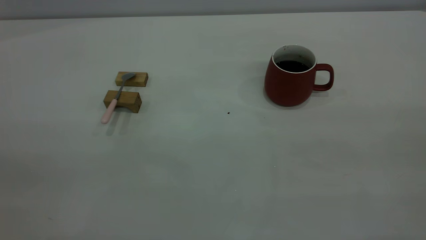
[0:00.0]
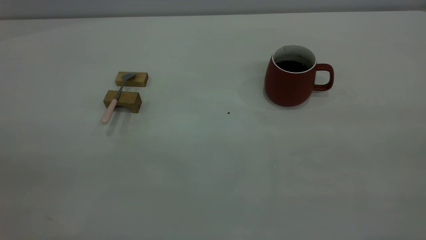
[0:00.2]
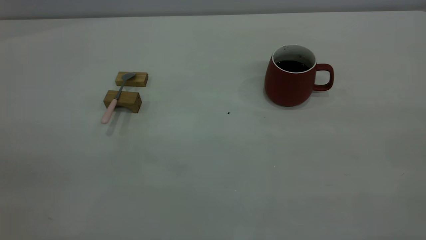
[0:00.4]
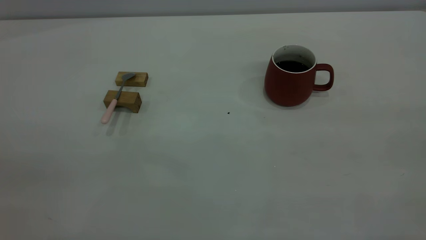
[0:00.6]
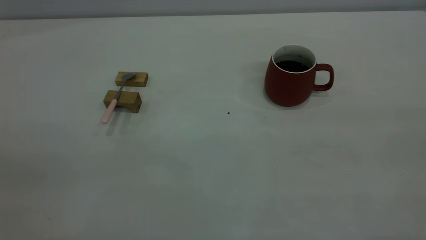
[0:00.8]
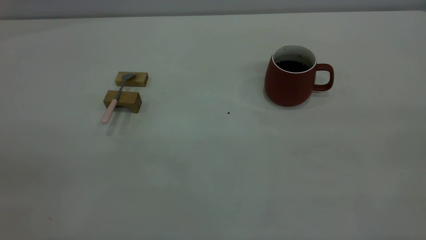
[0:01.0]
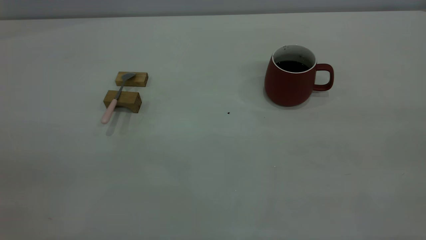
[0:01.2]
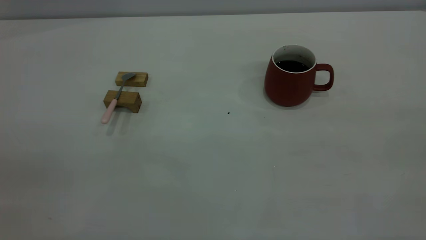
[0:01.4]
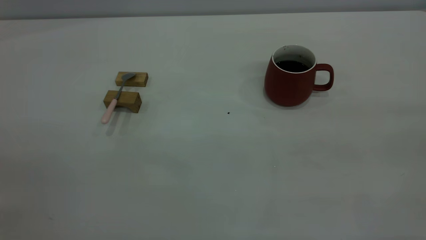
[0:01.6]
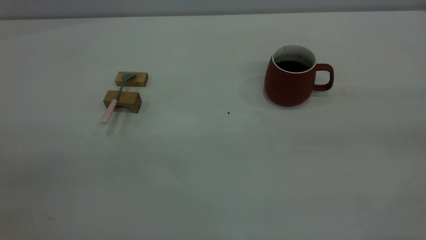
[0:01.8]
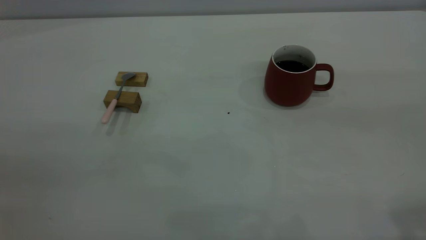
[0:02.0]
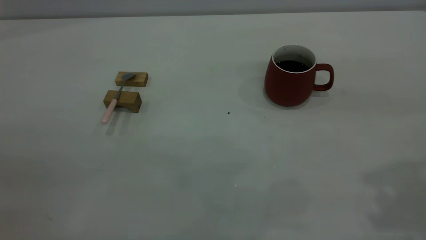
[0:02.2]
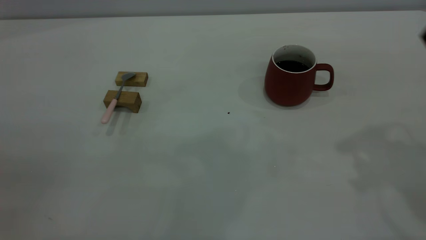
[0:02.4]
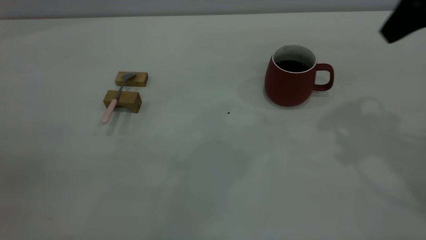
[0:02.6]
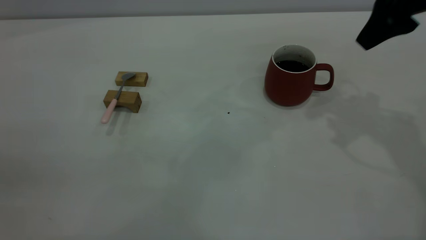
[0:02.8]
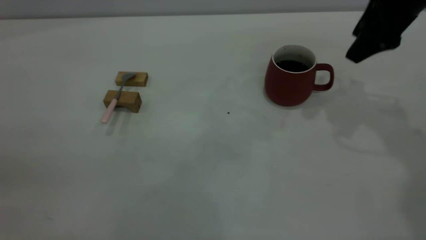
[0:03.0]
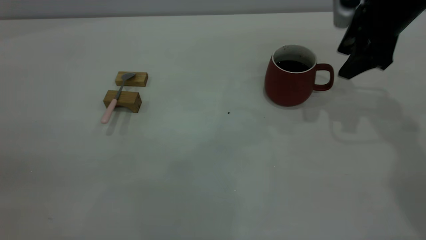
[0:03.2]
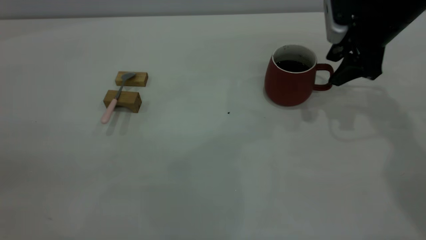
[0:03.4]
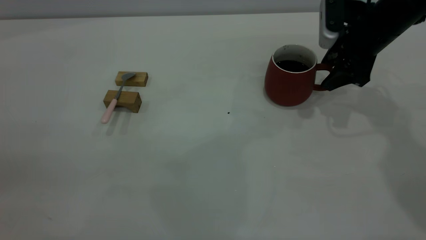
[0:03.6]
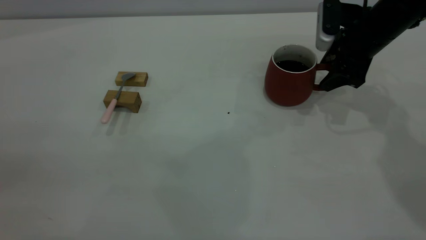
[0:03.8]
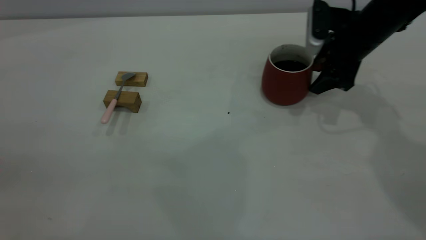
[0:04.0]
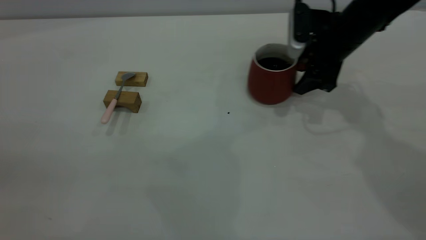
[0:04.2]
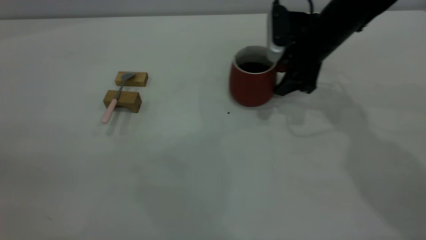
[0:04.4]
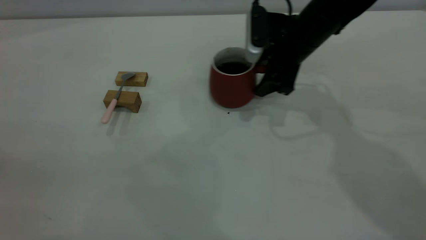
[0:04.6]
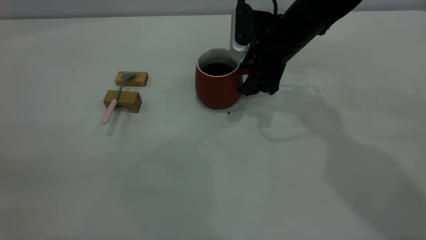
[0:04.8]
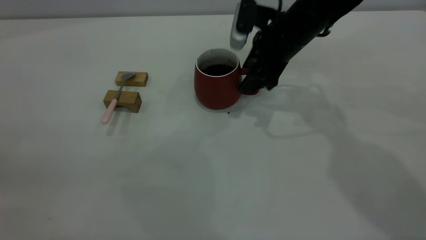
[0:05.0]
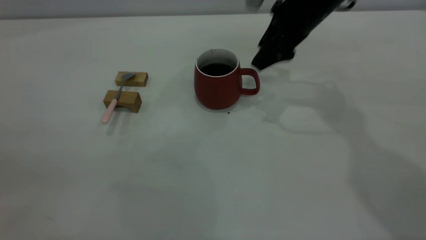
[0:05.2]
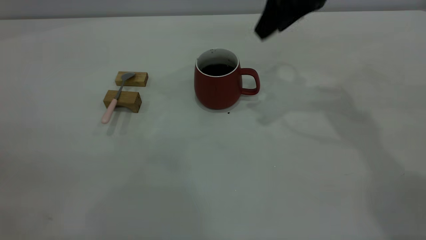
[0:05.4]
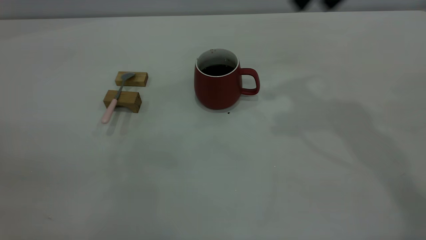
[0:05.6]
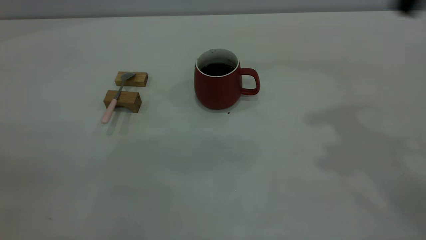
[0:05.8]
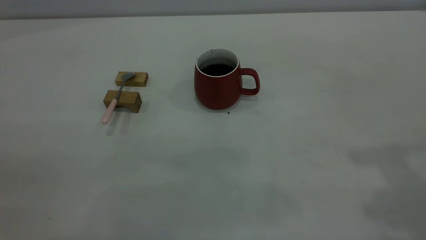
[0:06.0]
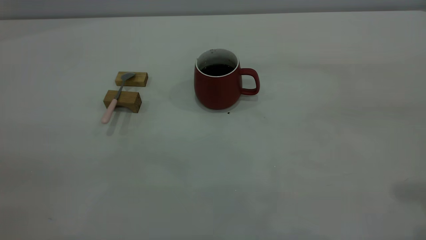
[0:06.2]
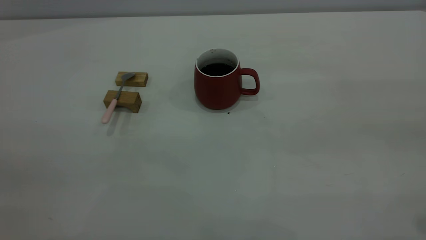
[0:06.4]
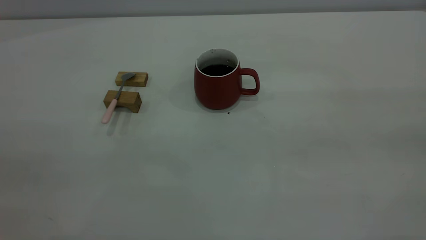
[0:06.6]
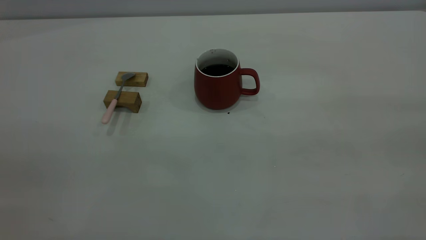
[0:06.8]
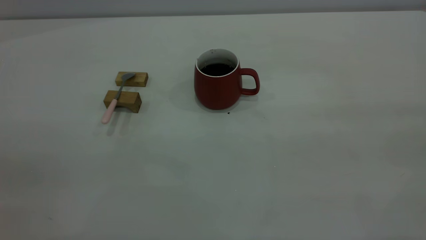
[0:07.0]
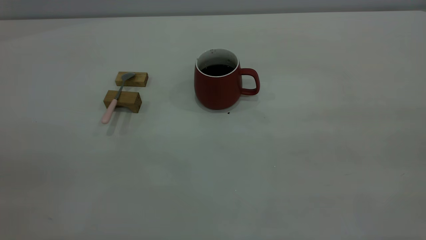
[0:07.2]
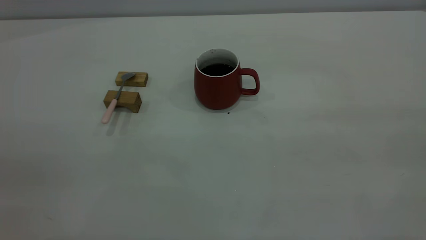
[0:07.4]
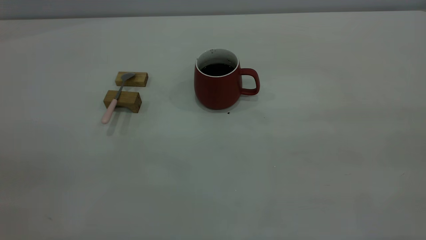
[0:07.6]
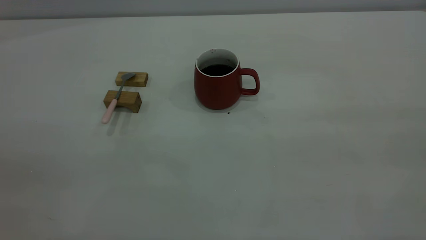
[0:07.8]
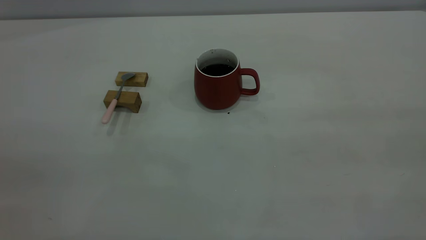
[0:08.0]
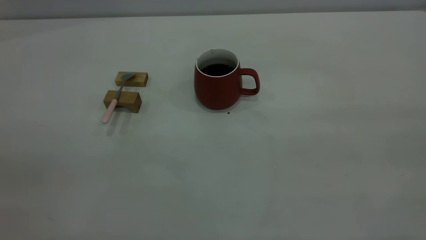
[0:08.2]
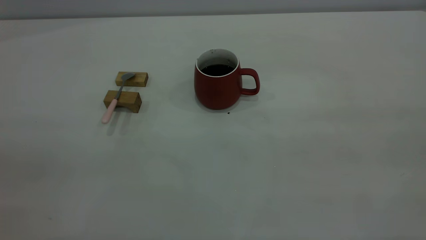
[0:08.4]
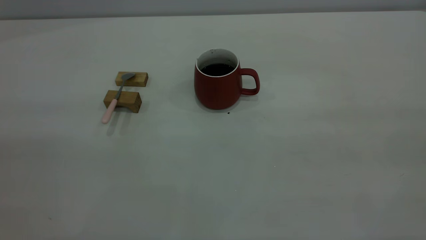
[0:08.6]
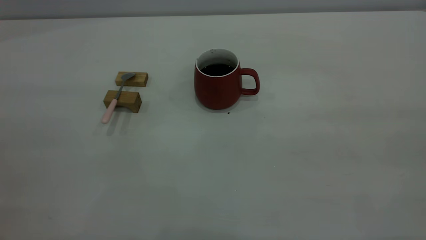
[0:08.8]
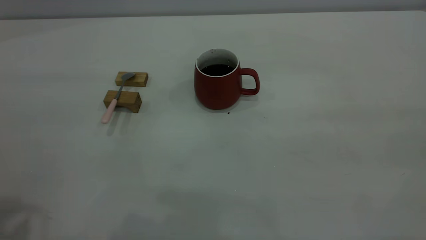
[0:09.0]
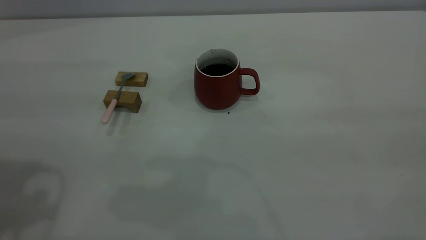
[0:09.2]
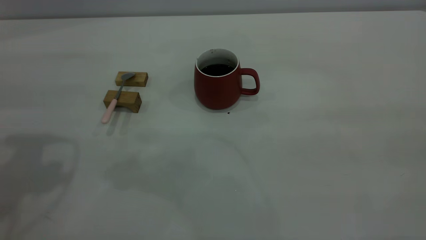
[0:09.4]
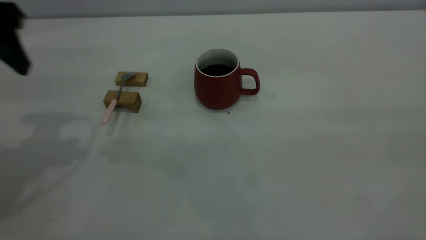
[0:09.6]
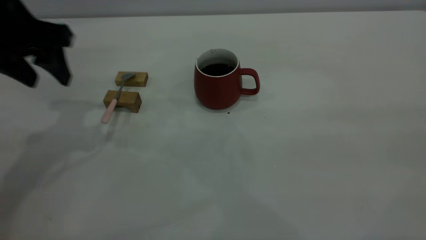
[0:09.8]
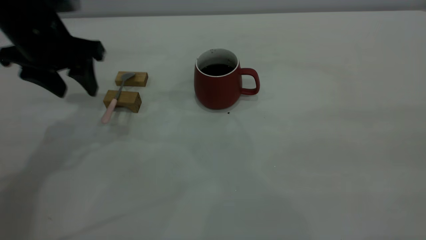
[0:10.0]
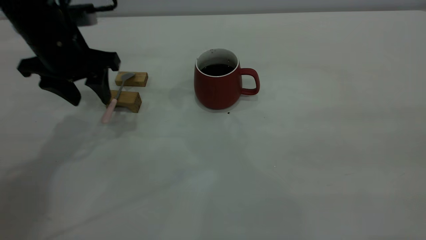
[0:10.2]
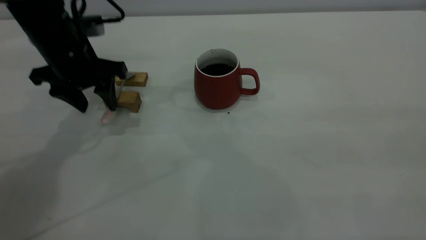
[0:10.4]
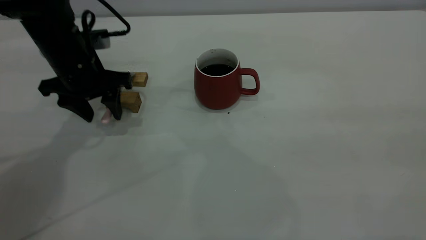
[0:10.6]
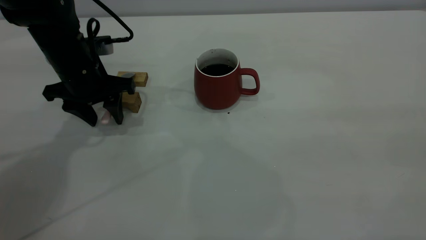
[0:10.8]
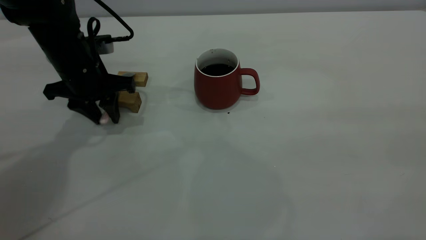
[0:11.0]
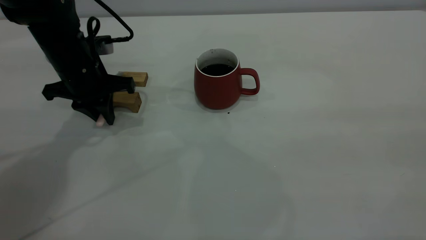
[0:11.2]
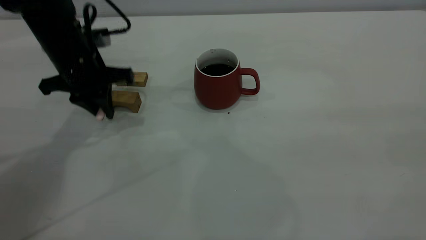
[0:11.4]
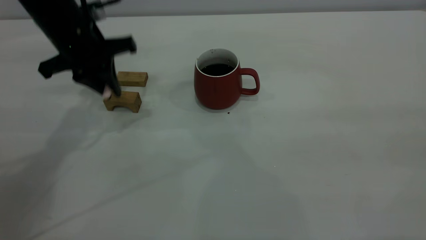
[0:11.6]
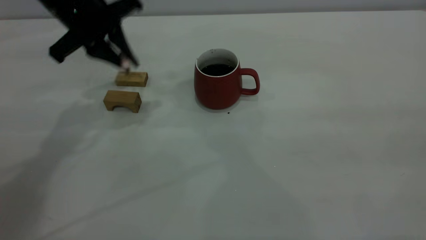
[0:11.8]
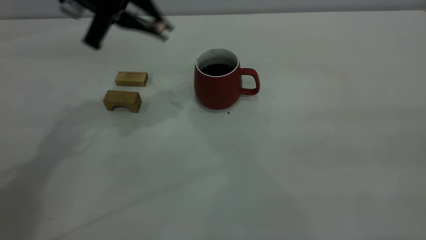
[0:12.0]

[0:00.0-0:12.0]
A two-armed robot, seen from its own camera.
Step, 0:00.0 to 0:05.2: Move the cup with coffee to the center of view.
Step, 0:05.4 to 0:11.6: Pick up the spoon.
0:01.6 to 0:03.0: The right gripper heads forward and downward, covering about 40 cm, and opens its fingers.
0:03.0 to 0:04.4: The right gripper shifts approximately 15 cm downward and to the left.
0:04.4 to 0:06.0: The right gripper is displaced upward, backward and to the right by some 35 cm.
0:09.0 to 0:10.4: The left gripper shifts roughly 30 cm forward and downward.
0:10.4 to 0:12.0: The left gripper travels upward and to the right by approximately 10 cm, and closes up.

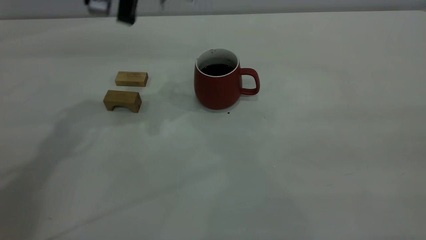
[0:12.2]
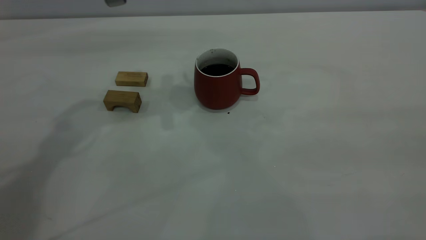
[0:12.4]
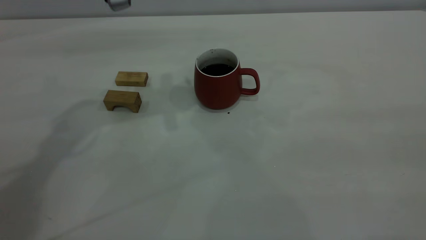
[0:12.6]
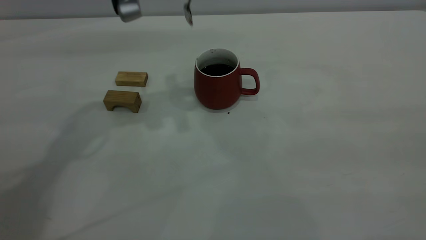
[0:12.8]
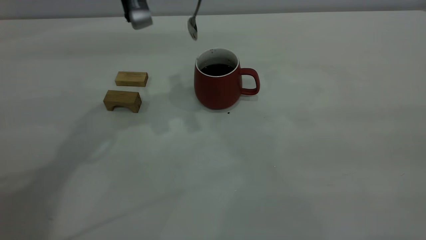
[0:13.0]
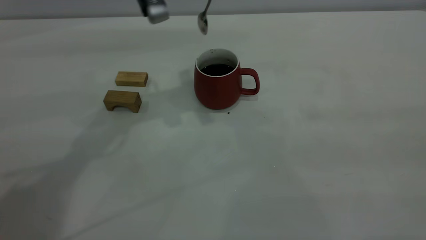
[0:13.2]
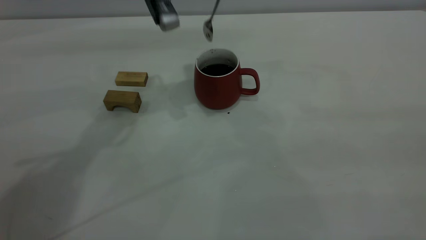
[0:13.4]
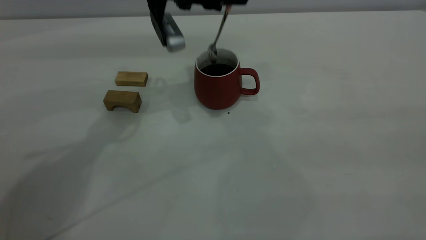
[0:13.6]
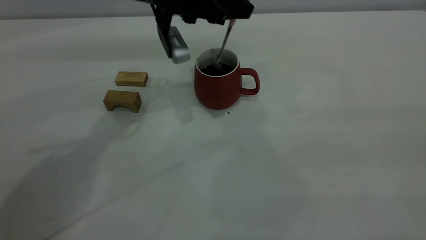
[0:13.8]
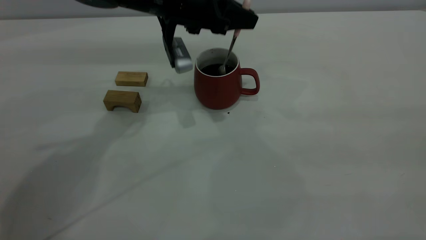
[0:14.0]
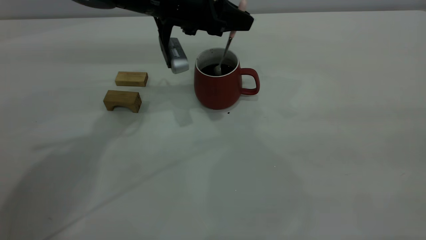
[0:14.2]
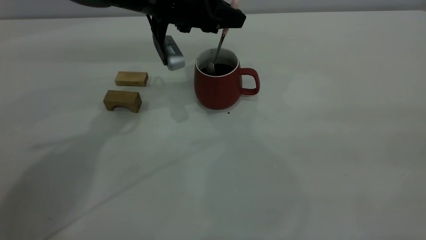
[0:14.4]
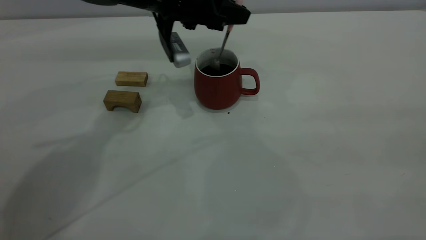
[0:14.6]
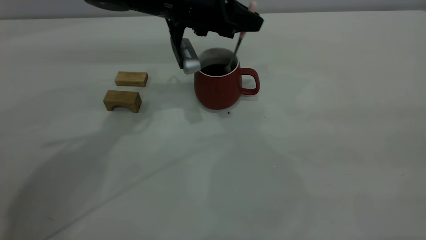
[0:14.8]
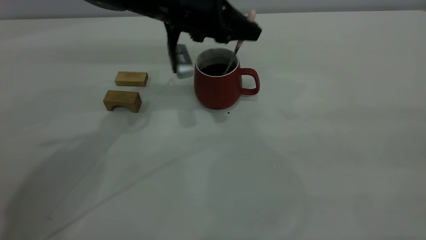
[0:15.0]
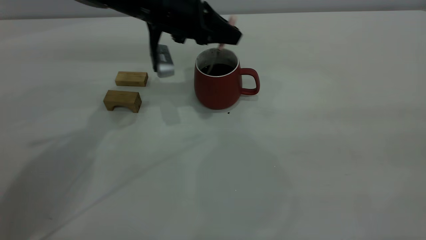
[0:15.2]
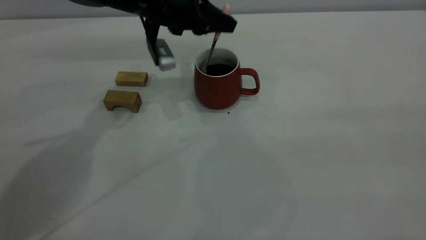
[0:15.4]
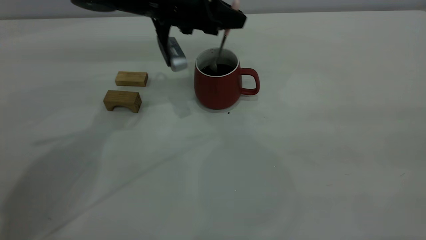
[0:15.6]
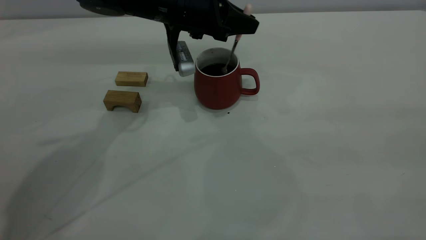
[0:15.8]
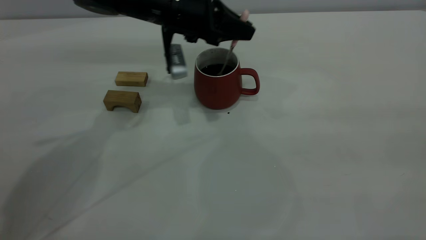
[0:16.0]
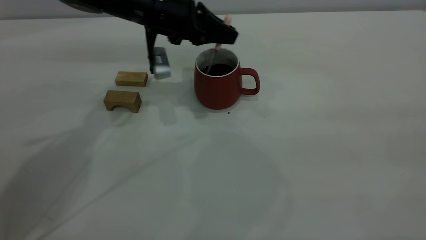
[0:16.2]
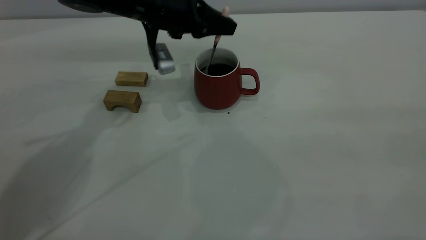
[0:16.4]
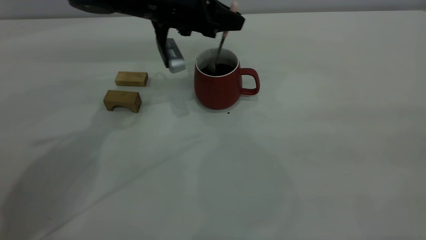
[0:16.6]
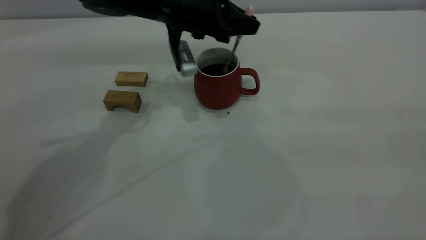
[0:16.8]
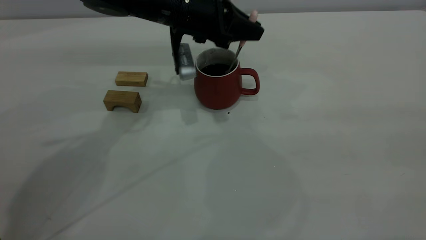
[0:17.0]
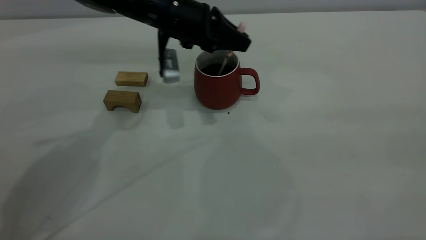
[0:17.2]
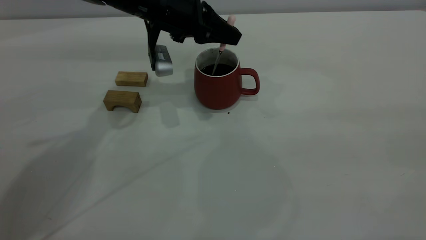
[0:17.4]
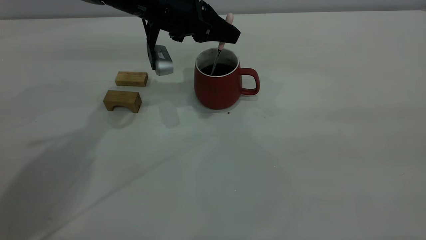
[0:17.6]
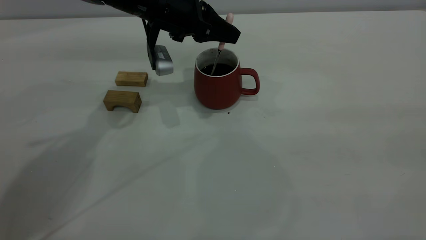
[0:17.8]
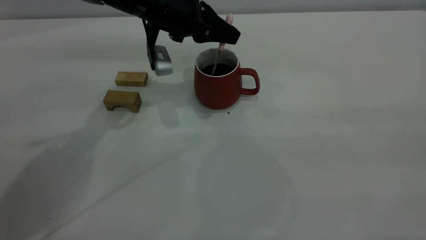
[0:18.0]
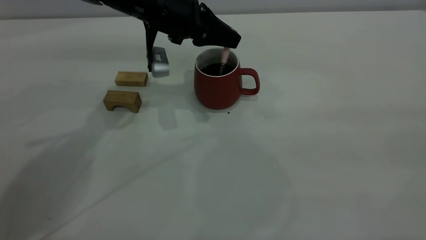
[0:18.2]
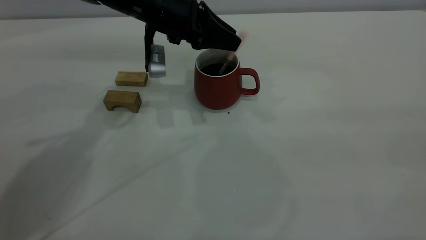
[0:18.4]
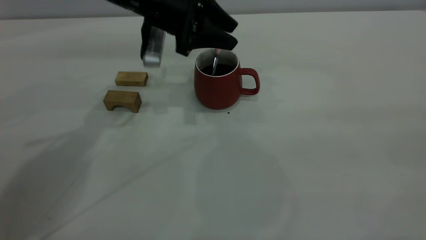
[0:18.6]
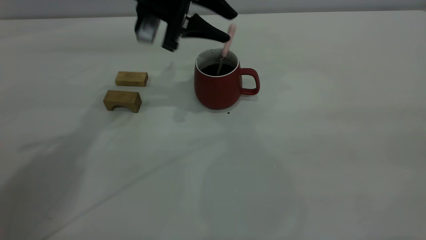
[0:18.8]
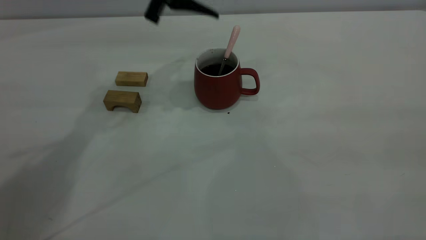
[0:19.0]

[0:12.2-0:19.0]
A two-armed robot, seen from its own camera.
Step, 0:12.2 to 0:18.8: Stir the coffee in the cup.
0:12.2 to 0:13.6: The left gripper heads to the right and downward, covering some 10 cm.
0:13.6 to 0:17.6: The grippers stay close to where they were, moving slightly.
0:17.6 to 0:19.0: The left gripper is displaced upward by roughly 10 cm, and opens.
